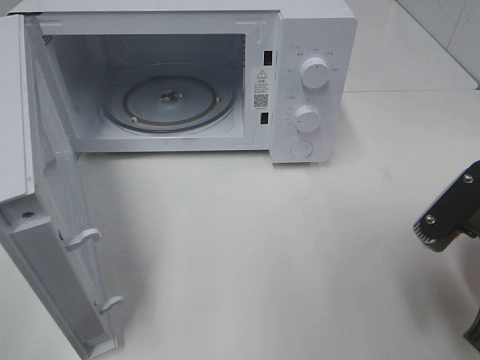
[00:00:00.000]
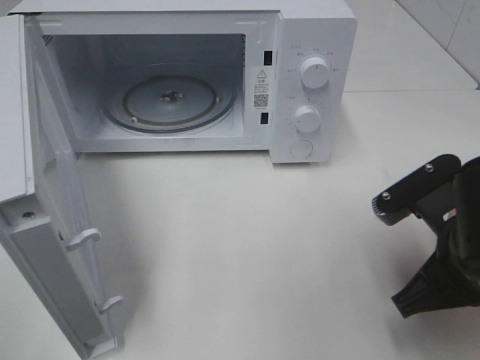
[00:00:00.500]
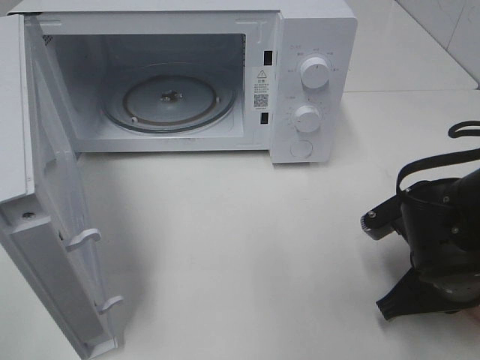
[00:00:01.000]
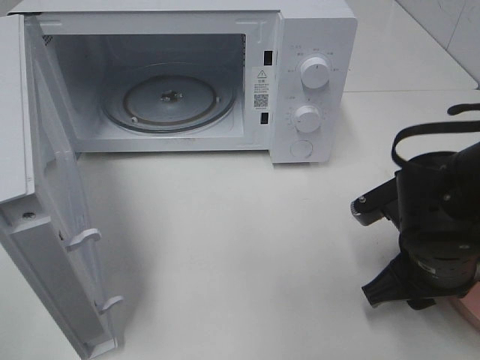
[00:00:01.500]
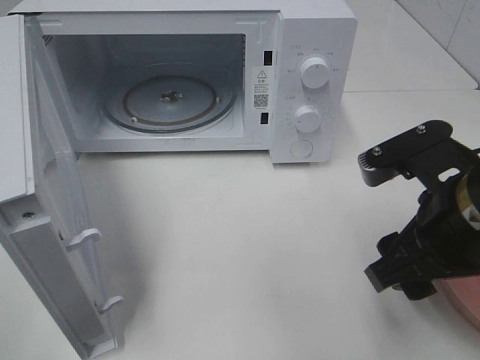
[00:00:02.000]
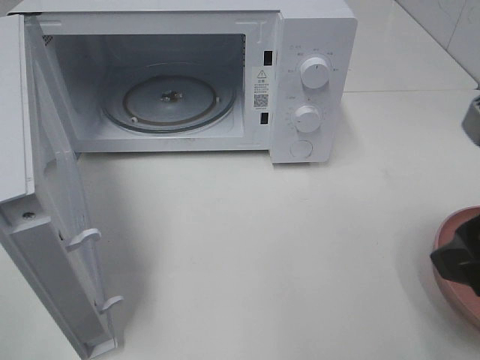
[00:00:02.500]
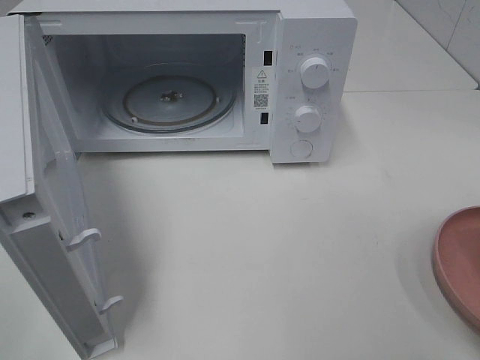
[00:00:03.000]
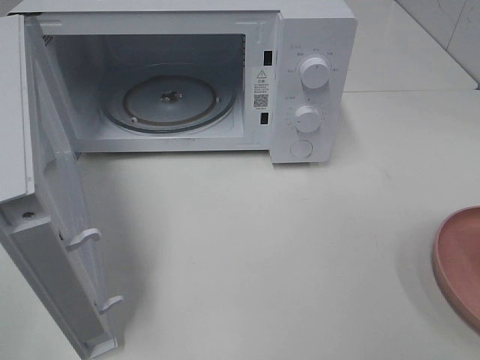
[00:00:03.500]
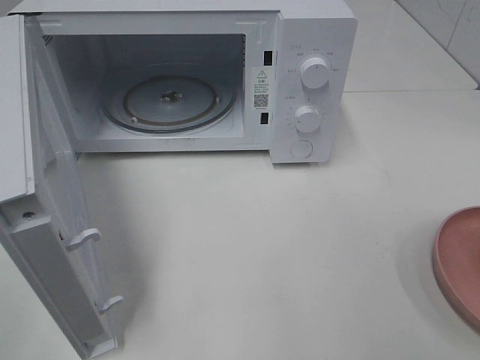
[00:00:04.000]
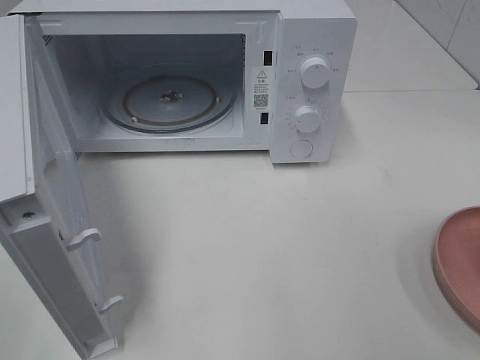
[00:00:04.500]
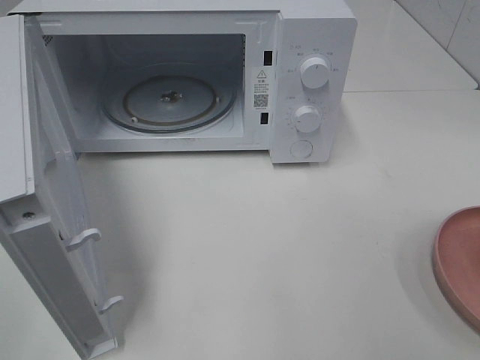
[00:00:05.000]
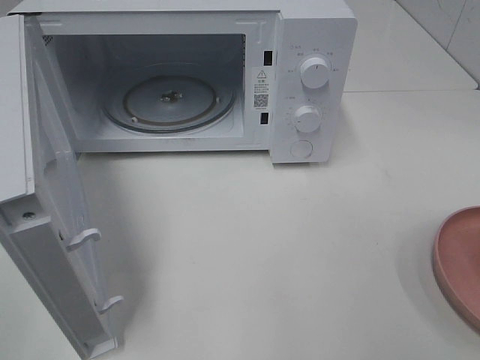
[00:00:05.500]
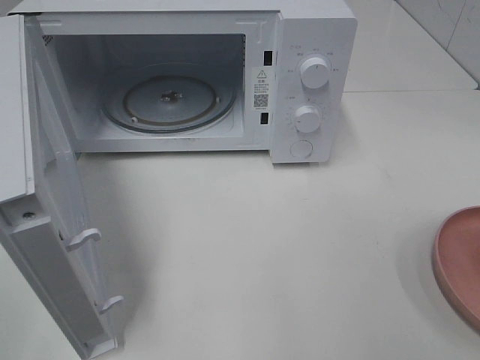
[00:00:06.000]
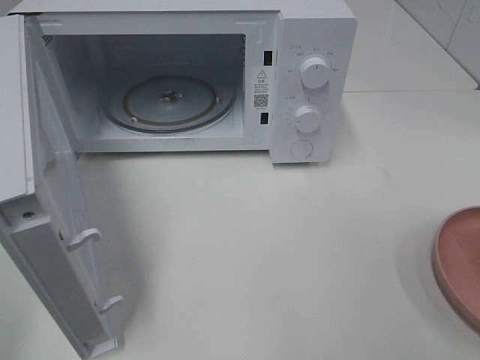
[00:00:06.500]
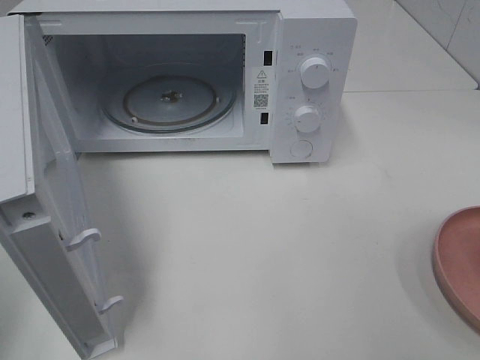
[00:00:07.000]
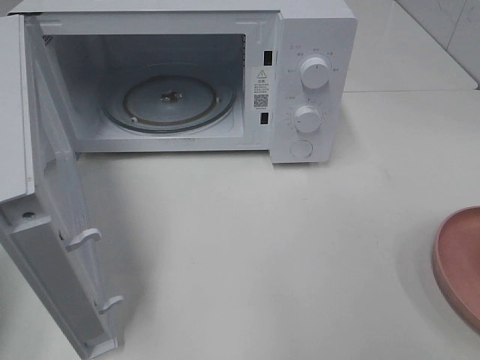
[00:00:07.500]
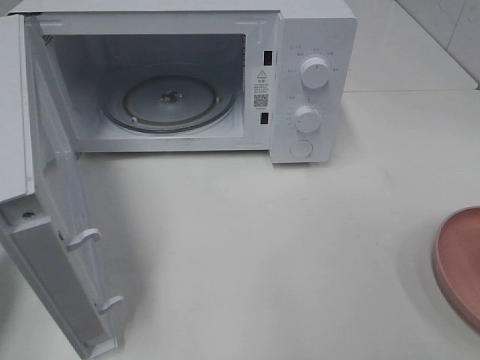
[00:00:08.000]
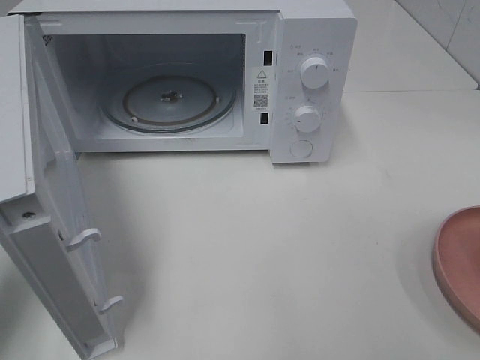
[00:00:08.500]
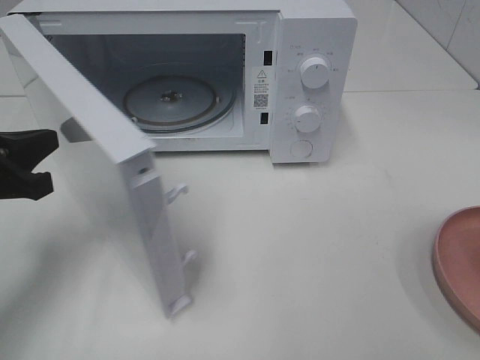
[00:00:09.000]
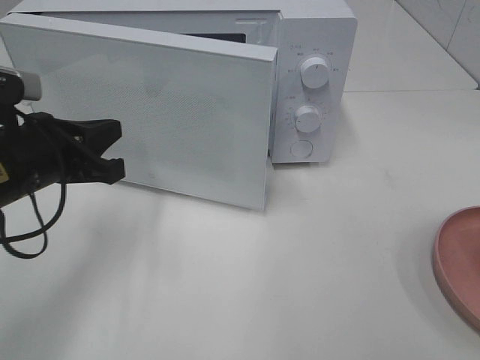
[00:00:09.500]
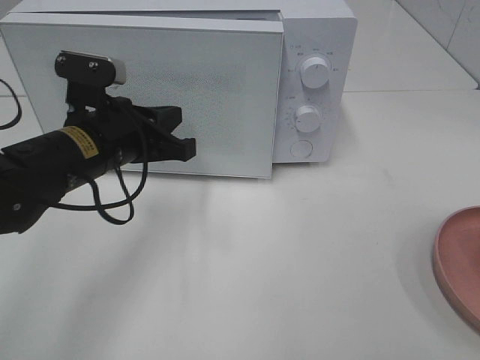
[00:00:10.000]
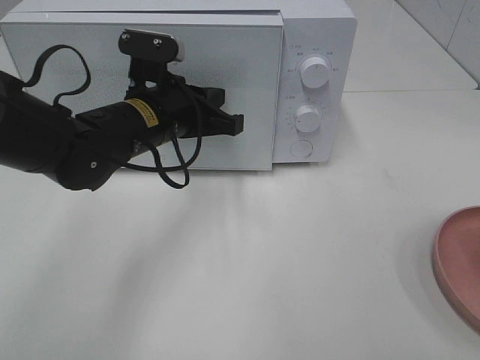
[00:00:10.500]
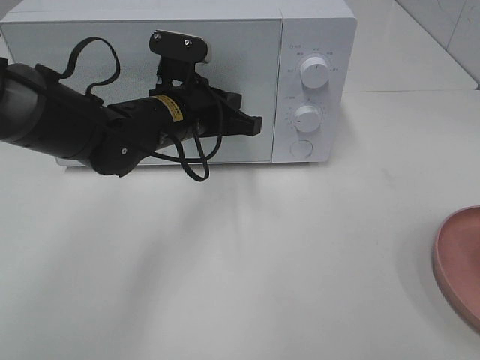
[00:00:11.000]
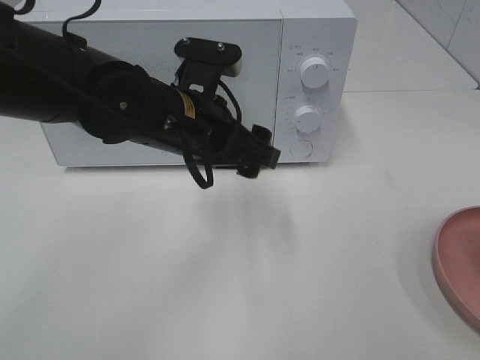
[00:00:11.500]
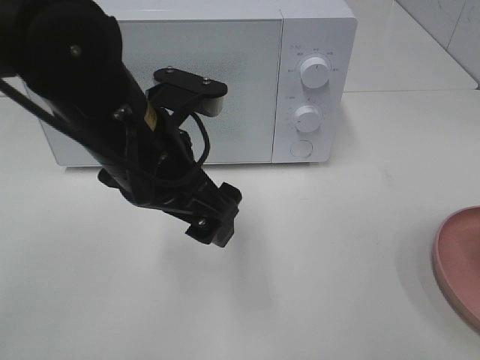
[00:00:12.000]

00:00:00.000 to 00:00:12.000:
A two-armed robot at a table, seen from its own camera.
Task of the whole recording: Heat the burger.
Step, 00:00:02.000 to 00:00:11.000: Left hand: close the microwave door.
00:00:00.000 to 00:00:02.000: The right gripper travels downward and back again, about 10 cm each way, and opens up.
00:00:02.000 to 00:00:04.000: The right gripper moves backward, to the right and upward, approximately 25 cm.
00:00:04.000 to 00:00:06.000: Both grippers stay put.
00:00:06.000 to 00:00:08.000: The left gripper is displaced forward and downward by roughly 20 cm, and closes.
00:00:08.000 to 00:00:10.000: The left gripper heads to the right and forward, covering about 25 cm.
00:00:10.000 to 00:00:12.000: The left gripper shifts approximately 10 cm upward, backward and to the right, and opens up.

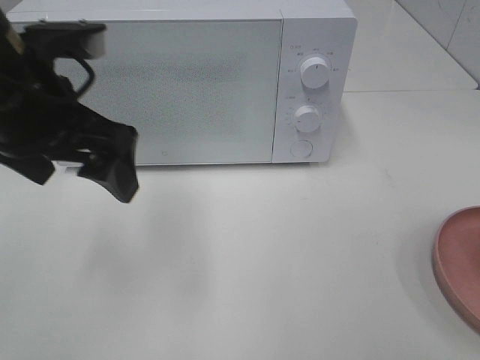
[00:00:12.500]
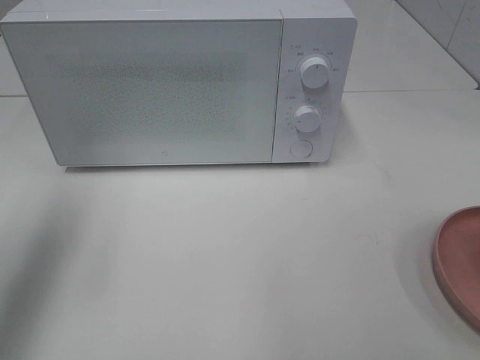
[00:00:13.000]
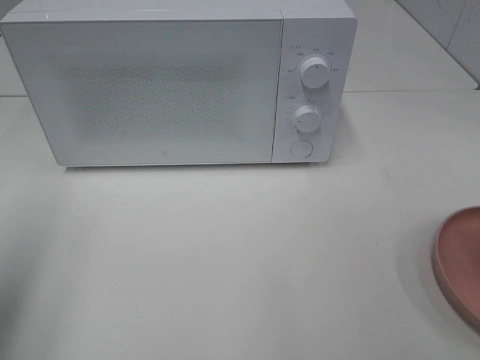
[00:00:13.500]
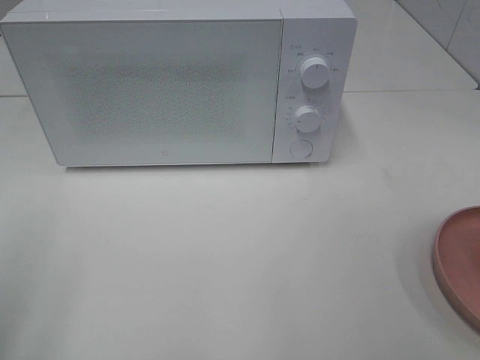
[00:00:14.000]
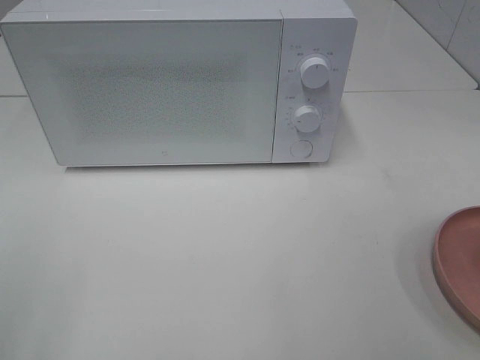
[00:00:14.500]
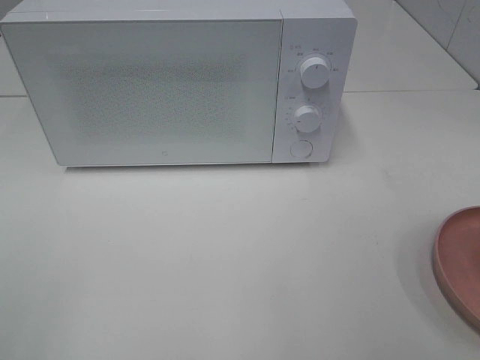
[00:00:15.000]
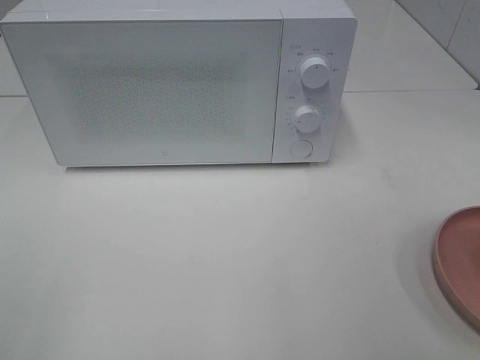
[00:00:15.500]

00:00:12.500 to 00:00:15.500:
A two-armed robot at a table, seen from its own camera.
Task of the whole recording: Heat the burger.
00:00:12.500 to 00:00:14.000: The left gripper shifts some 25 cm backward and to the left.

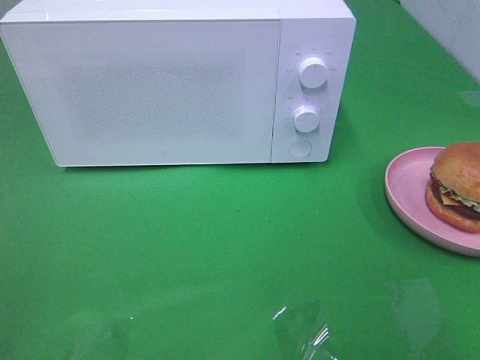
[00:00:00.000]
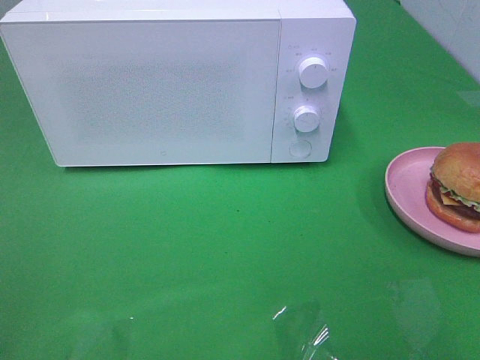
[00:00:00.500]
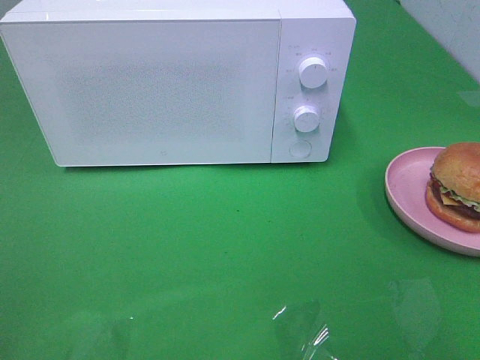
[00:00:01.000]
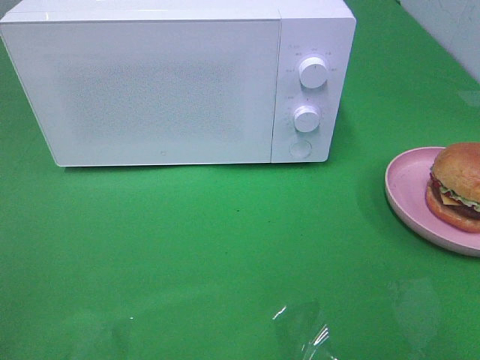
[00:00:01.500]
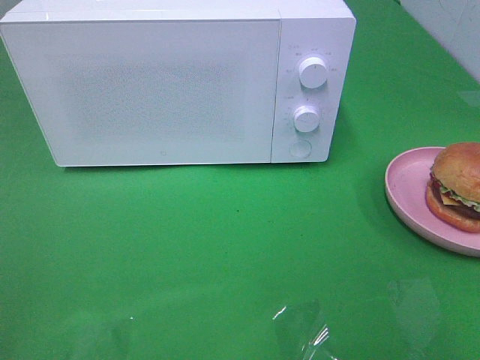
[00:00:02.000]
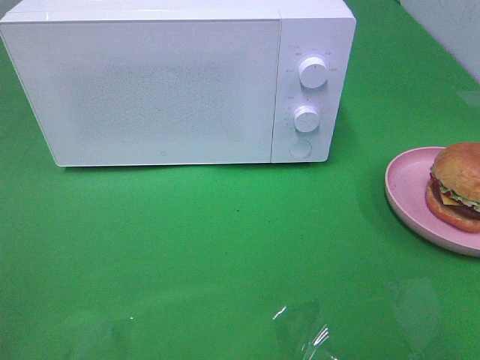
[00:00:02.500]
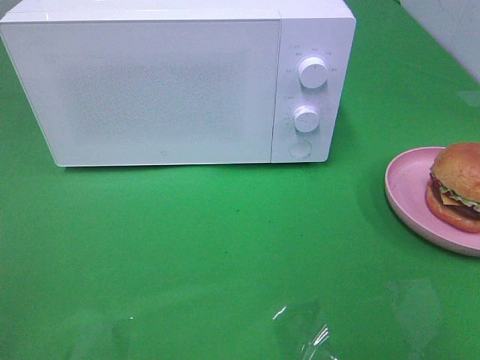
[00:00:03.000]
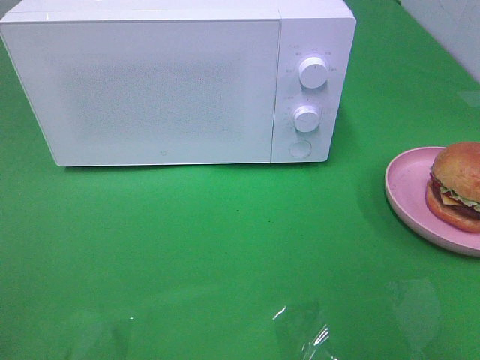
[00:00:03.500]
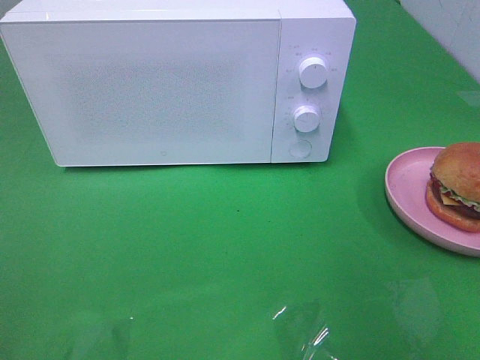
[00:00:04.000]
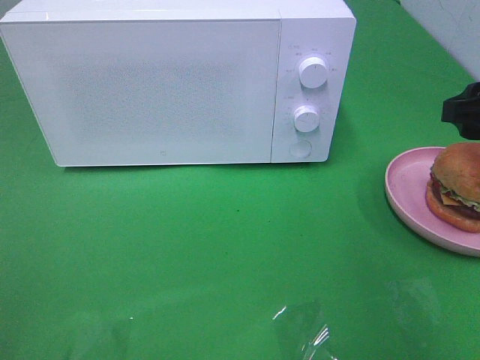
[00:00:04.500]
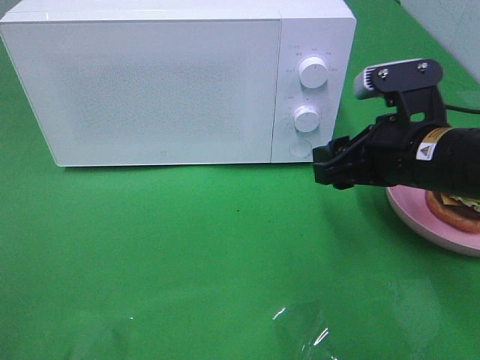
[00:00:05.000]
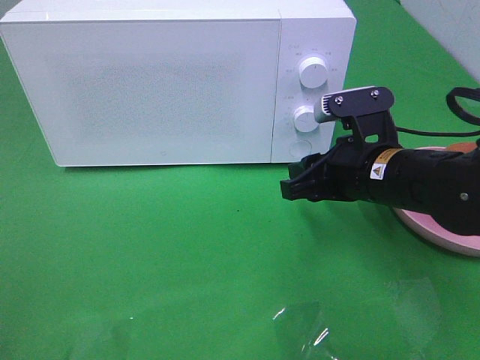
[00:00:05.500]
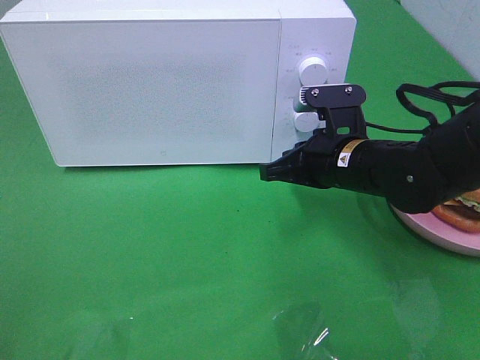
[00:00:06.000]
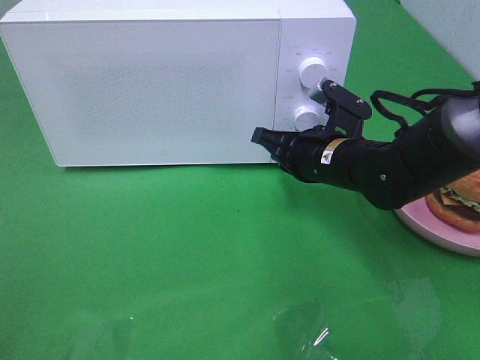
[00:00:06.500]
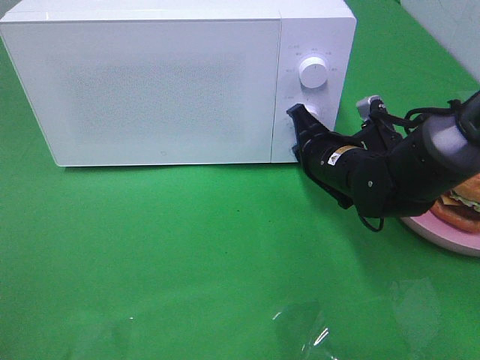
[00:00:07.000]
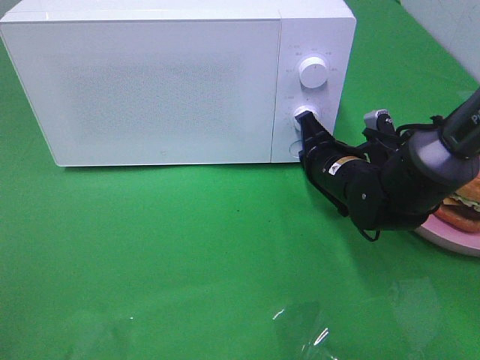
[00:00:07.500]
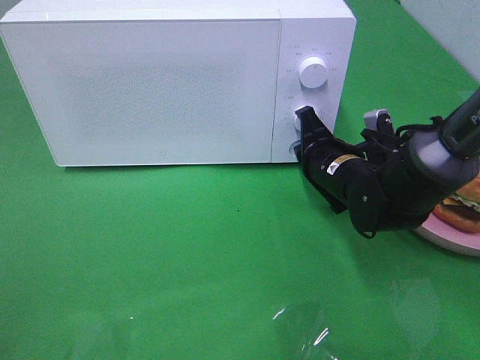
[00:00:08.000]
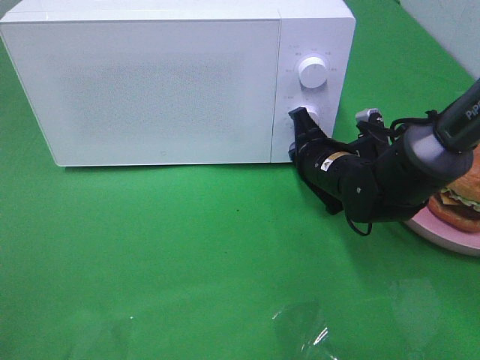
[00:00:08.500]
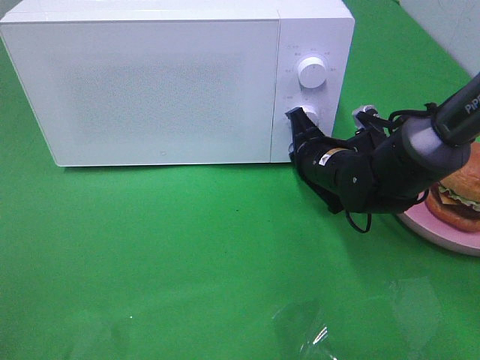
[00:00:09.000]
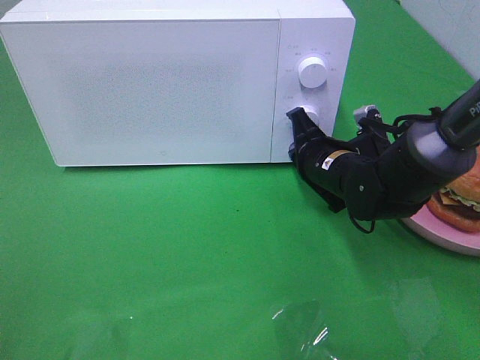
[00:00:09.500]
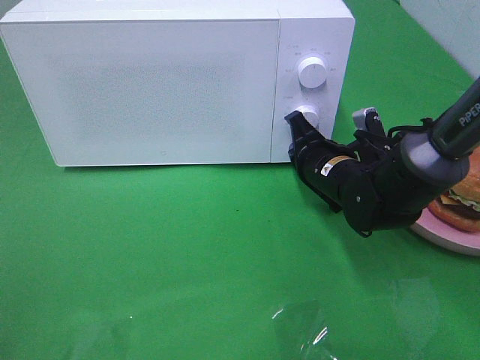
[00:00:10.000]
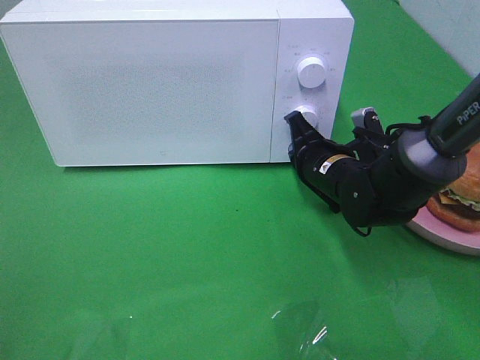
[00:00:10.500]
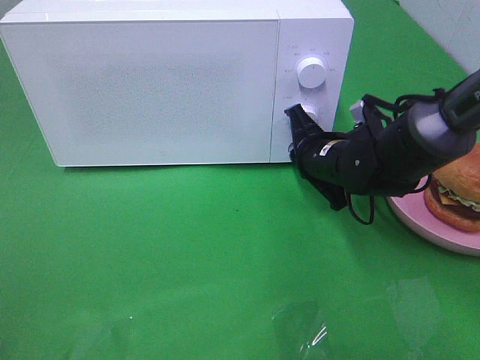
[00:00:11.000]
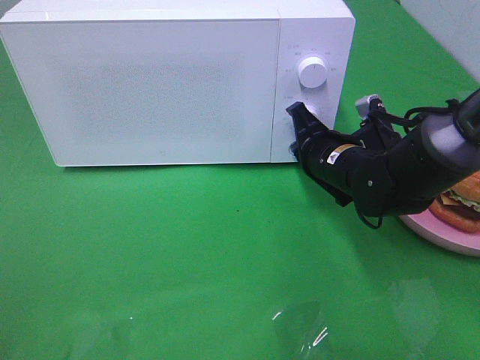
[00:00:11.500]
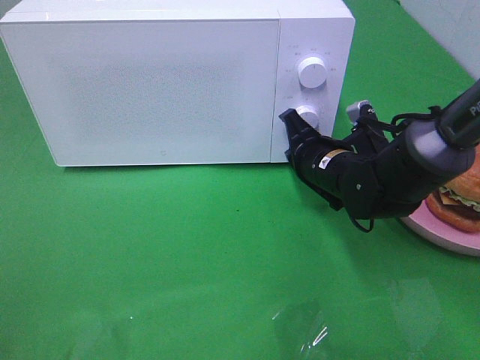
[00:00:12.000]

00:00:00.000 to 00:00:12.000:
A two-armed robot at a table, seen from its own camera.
Task of the whole recording: Heat the burger.
00:00:00.000 to 00:00:02.000: Neither gripper changes place.
00:00:04.000 to 00:00:06.000: The right gripper moves downward, to the left and forward, about 25 cm, and closes its fingers.
00:00:06.000 to 00:00:08.000: The right gripper moves roughly 5 cm.
00:00:08.000 to 00:00:12.000: The grippers stay close to where they were, moving slightly.
